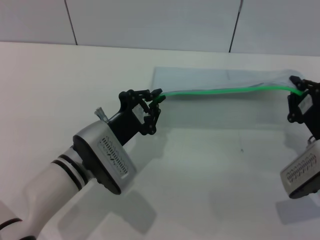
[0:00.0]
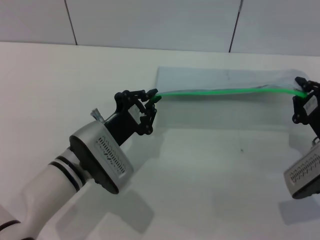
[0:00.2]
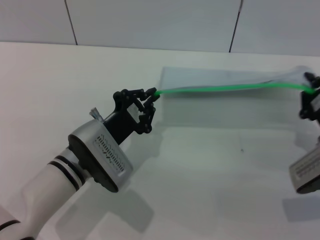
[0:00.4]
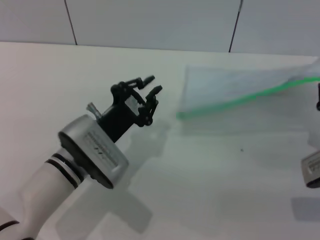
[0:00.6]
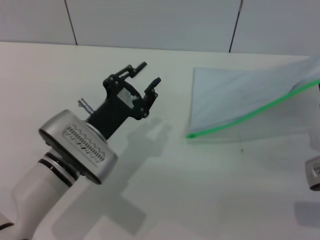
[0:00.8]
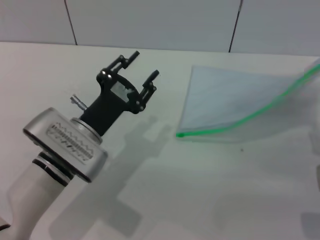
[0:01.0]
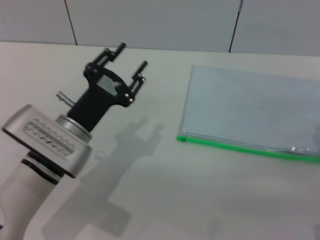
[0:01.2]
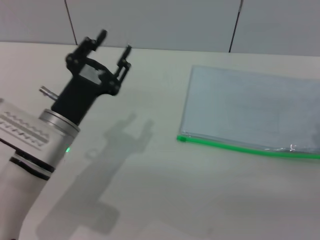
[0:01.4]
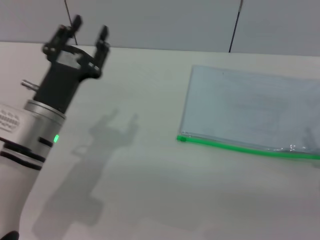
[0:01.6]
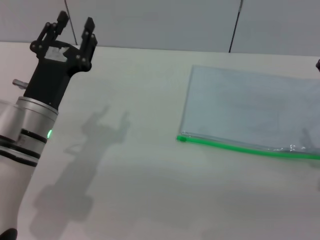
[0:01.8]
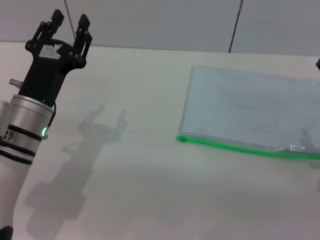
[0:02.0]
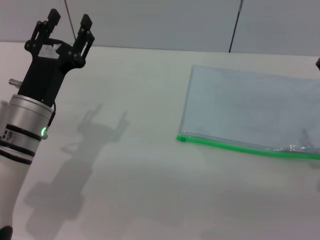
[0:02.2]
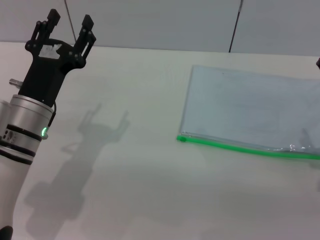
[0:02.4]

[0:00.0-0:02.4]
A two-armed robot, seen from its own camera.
Step, 0:00.6 to 0:01.8: Place the transparent plastic bag.
0:00.0 to 0:01.2: The left gripper opens, while the right gripper ends up approximately 5 cm from where it was, and opens.
